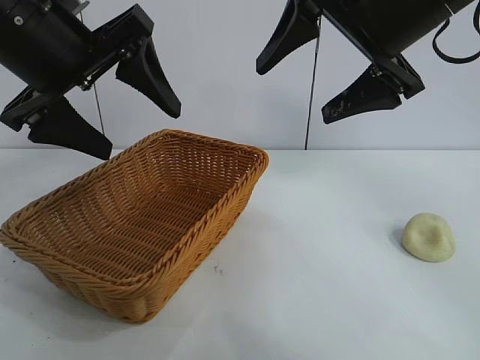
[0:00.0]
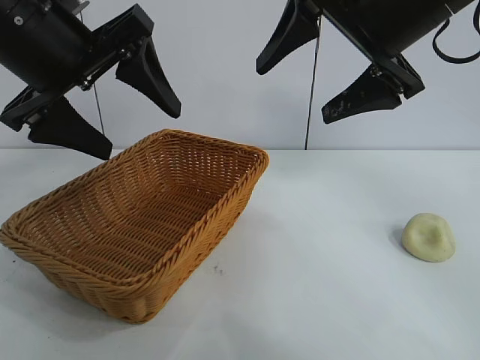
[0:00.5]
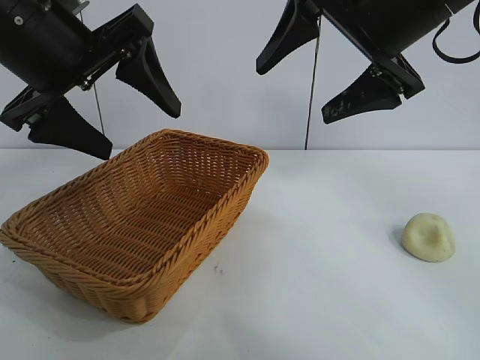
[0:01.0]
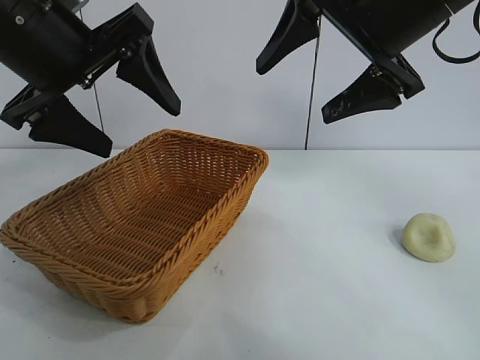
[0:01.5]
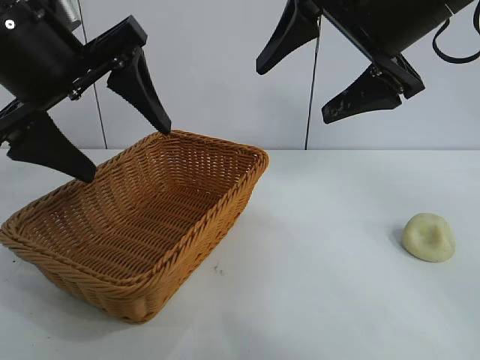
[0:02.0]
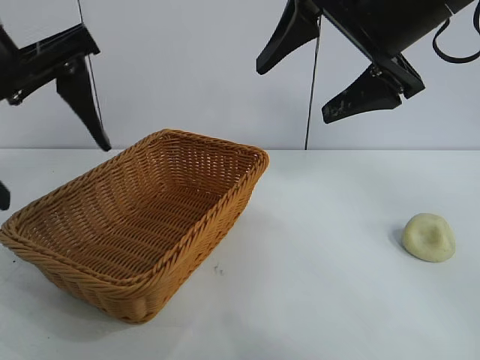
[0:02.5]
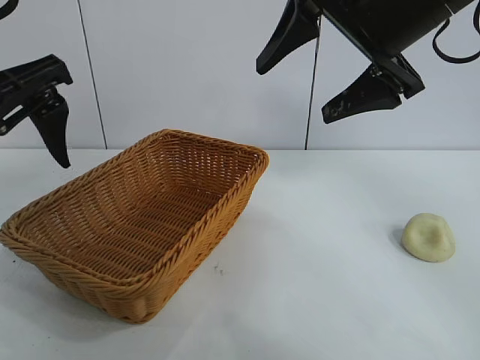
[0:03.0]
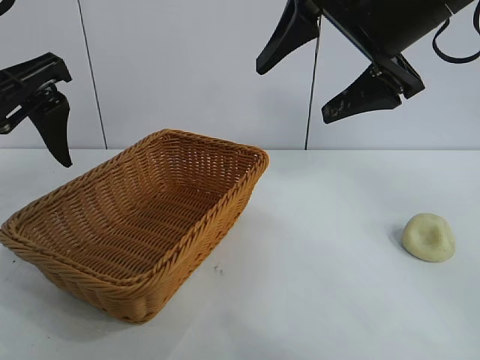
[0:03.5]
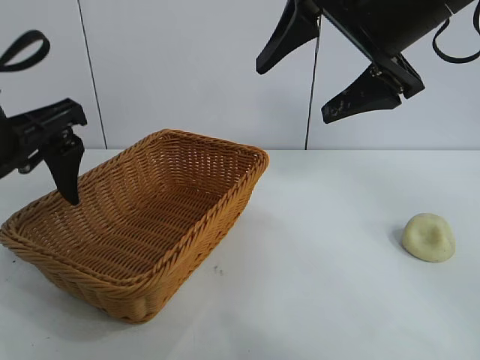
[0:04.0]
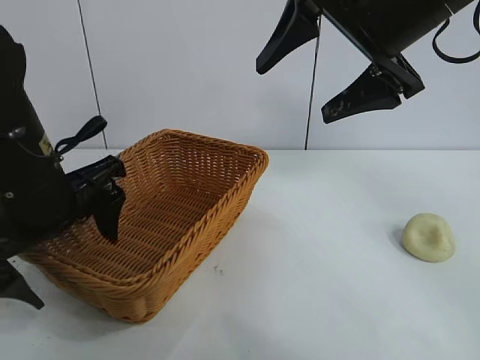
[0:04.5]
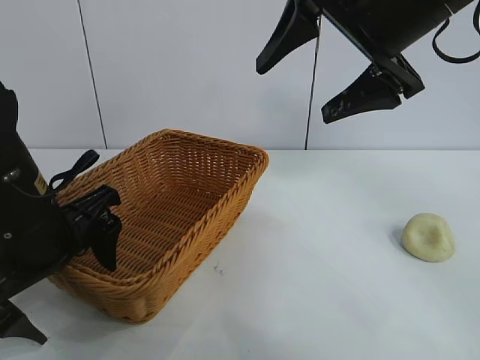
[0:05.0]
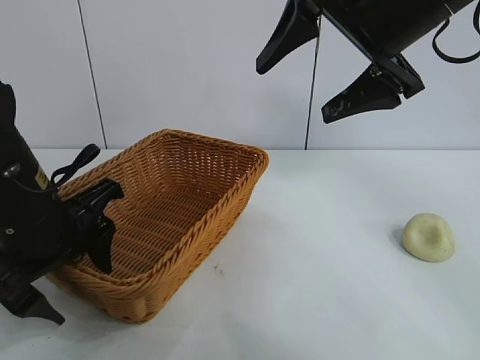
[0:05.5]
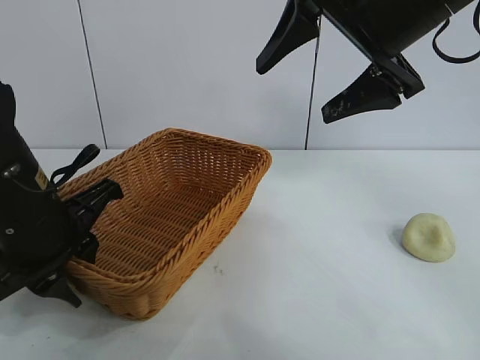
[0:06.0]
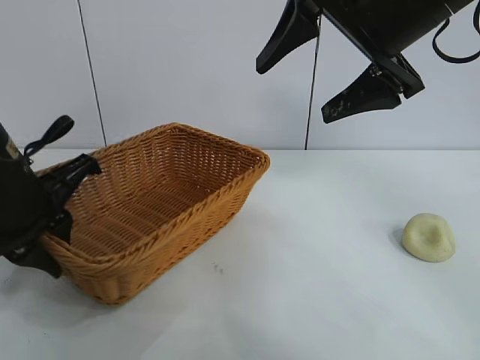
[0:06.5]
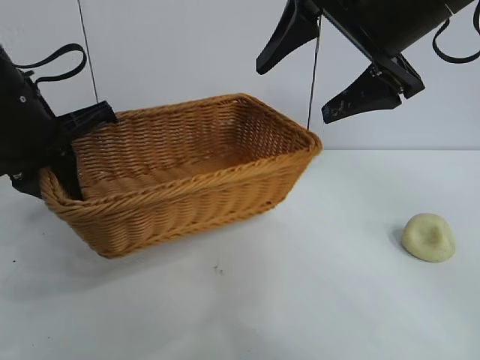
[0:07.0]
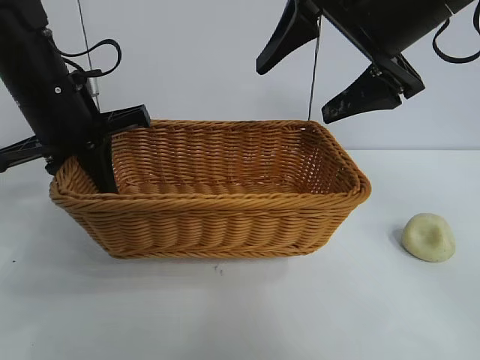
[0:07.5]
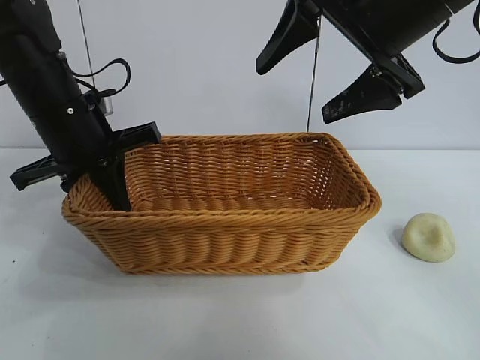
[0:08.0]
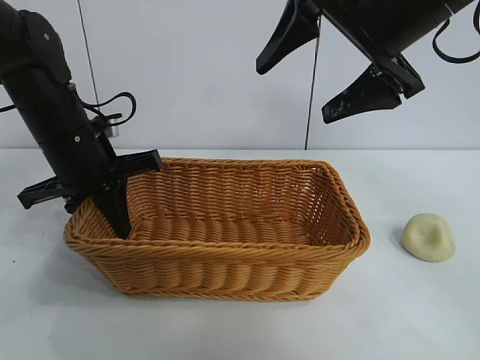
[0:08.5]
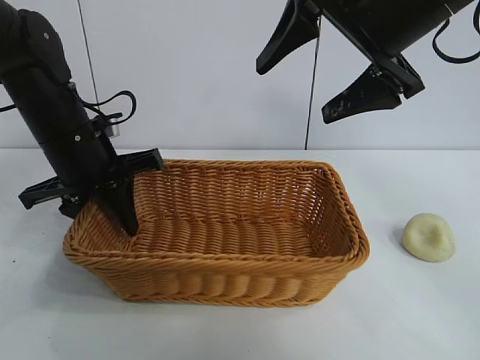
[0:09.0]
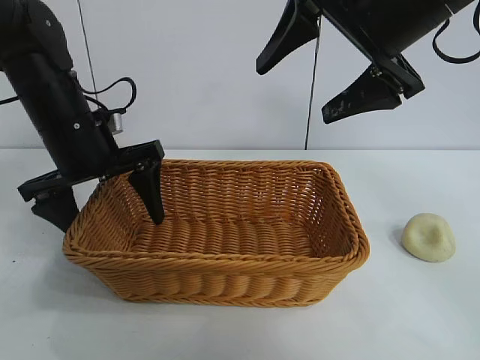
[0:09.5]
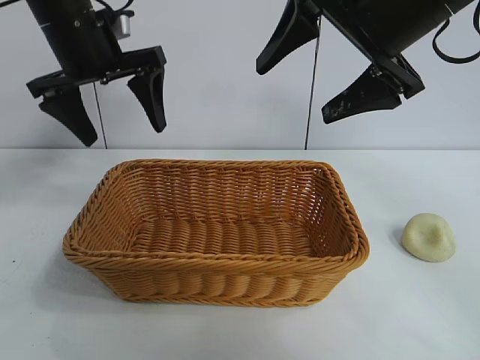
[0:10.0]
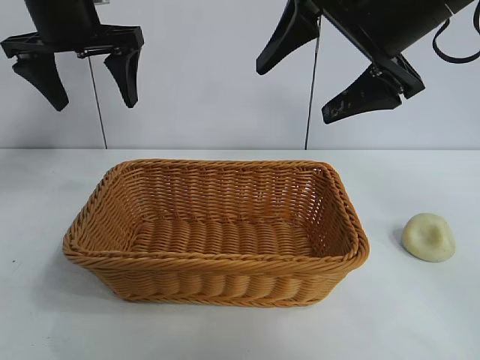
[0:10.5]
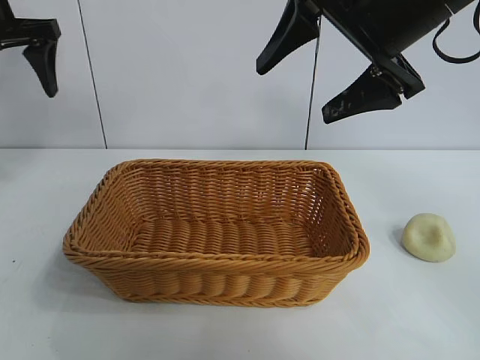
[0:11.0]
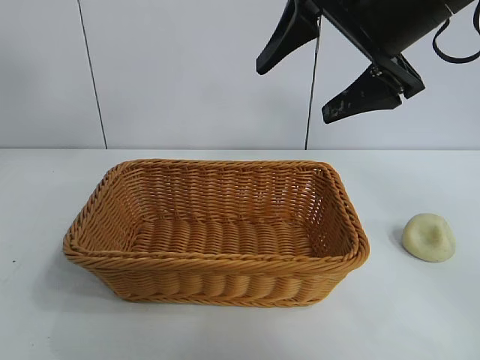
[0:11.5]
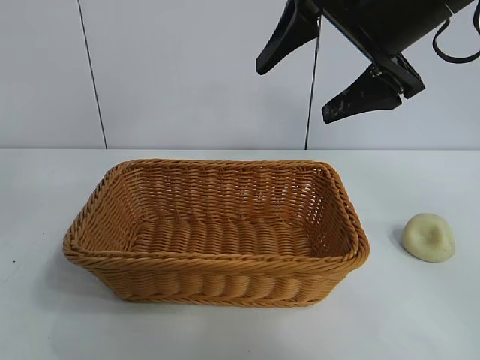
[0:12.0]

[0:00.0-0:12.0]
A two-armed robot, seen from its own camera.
Task of the whole recording: pick up the egg yolk pastry and put it into the basket.
Step, 0:01.5 to 0:06.0: Grasp the basket with left gripper.
Step, 0:06.5 to 0:09.5: Place the basket in the center of view with left gripper.

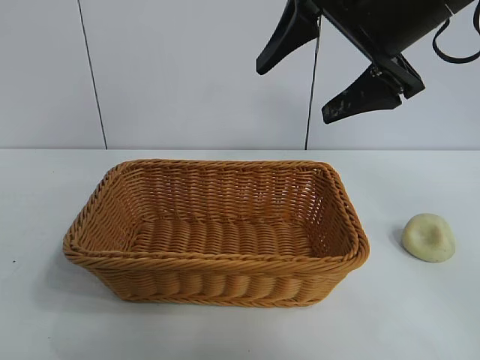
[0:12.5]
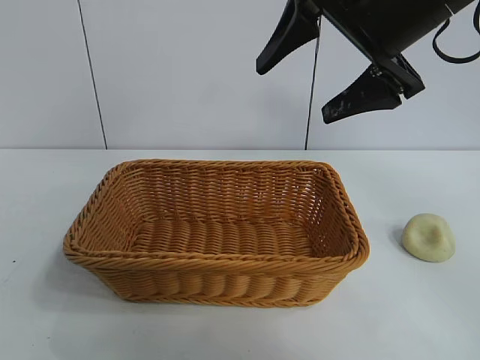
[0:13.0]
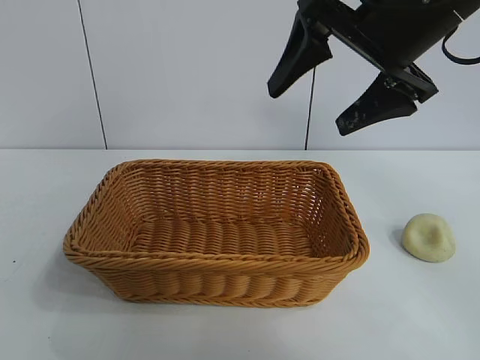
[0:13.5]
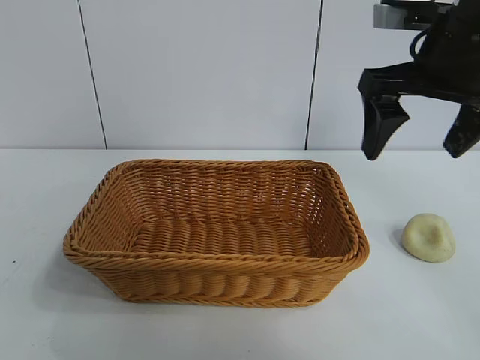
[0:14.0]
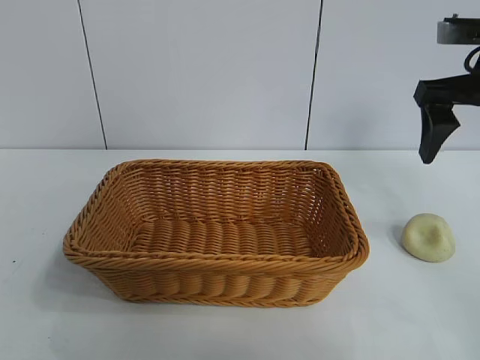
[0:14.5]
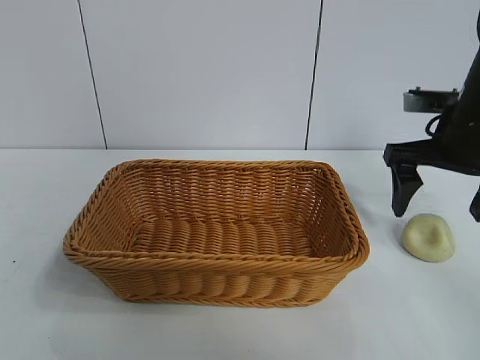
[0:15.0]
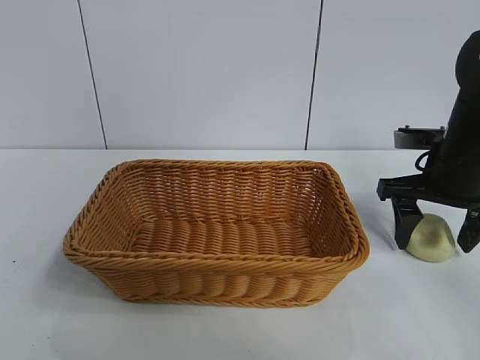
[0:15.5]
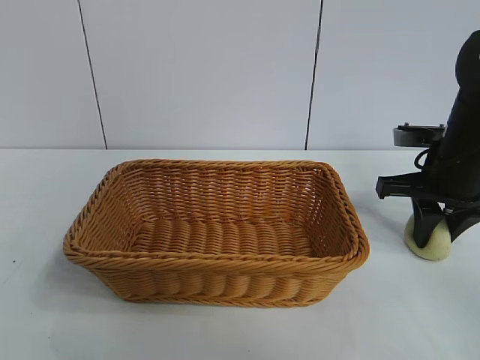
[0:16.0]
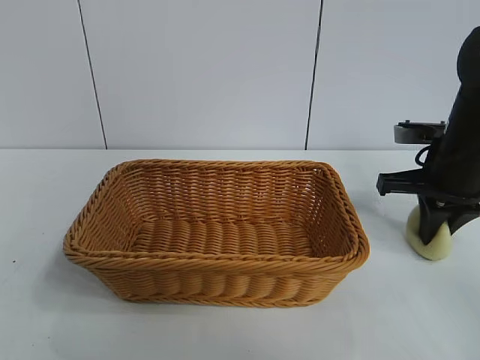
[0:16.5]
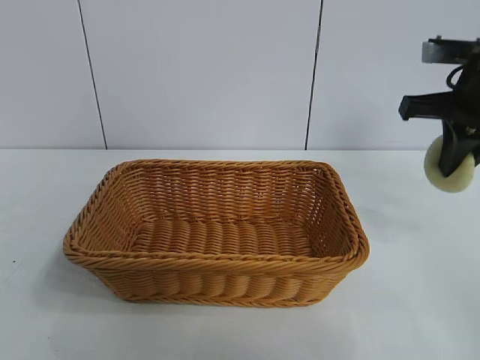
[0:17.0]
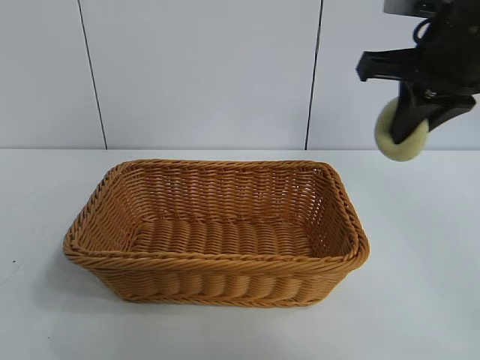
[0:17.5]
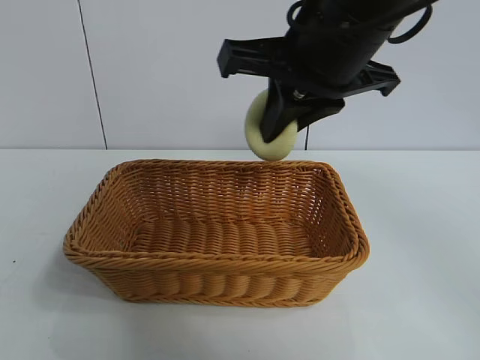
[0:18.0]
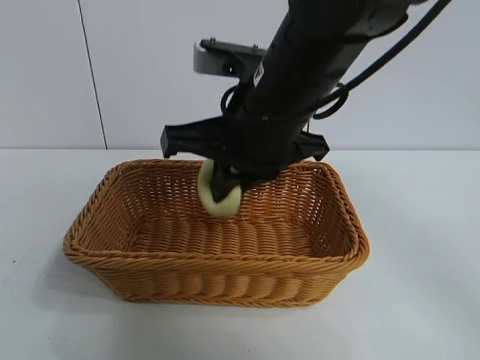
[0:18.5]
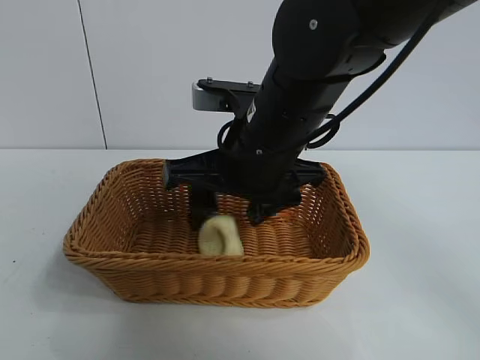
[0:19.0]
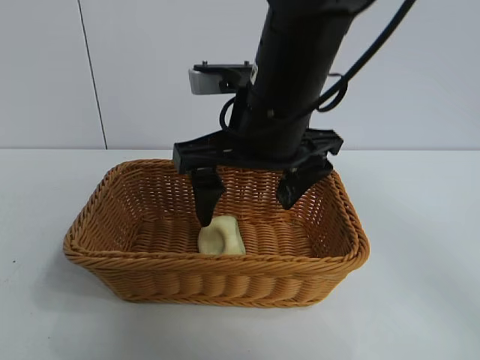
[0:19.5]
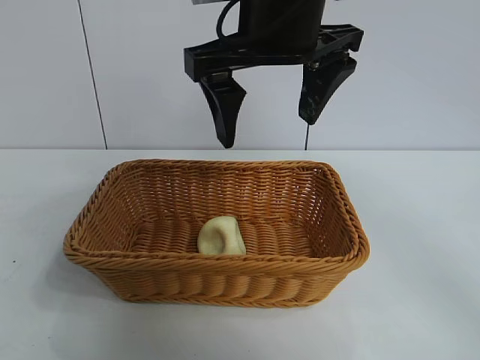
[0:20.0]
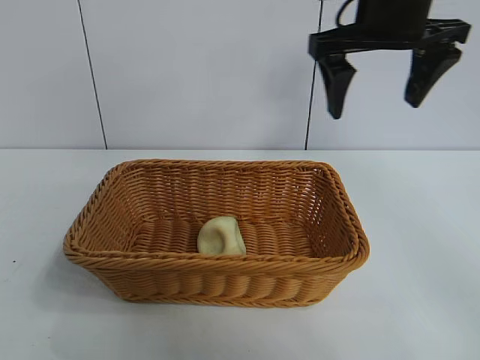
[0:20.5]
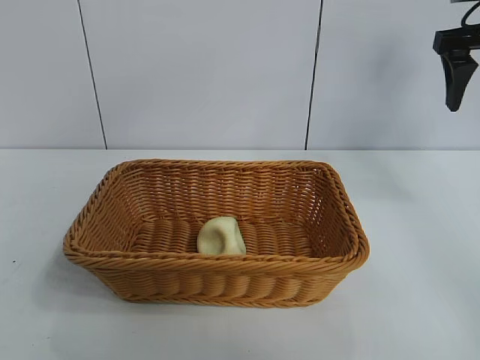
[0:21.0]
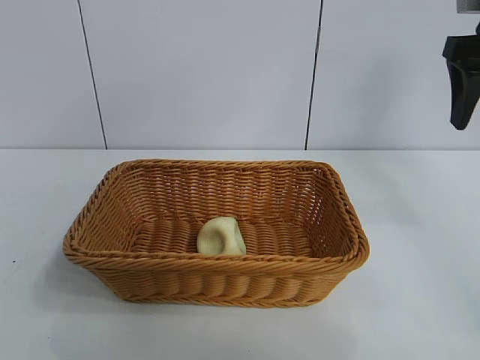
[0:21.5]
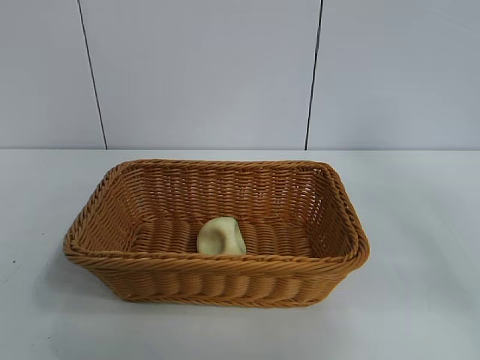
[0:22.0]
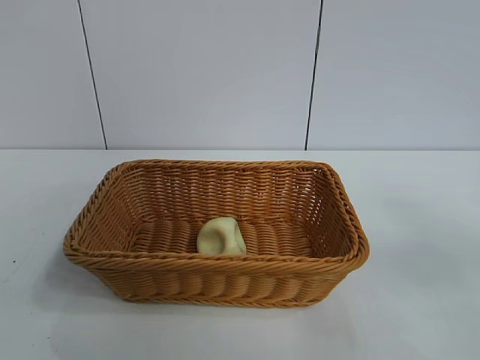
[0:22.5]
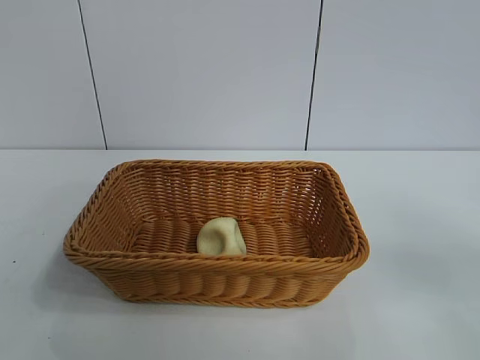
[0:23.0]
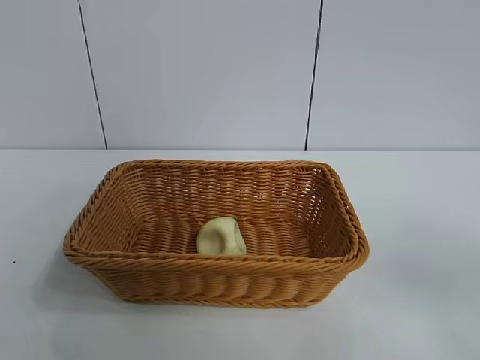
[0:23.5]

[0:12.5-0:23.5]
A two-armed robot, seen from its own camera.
Task of the whole recording: pick up the egg yolk pastry and put it into the basket.
Step, 0:12.5 to 0:16.5: Grasp egg yolk pastry with right gripper.
Step, 0:17.0 to 0:19.5: Place the egg yolk pastry in the basket with right gripper.

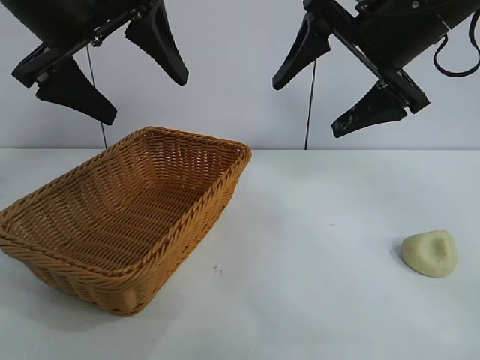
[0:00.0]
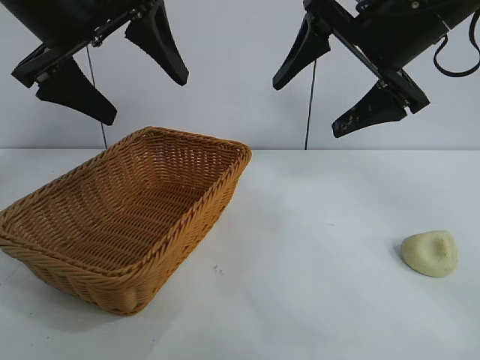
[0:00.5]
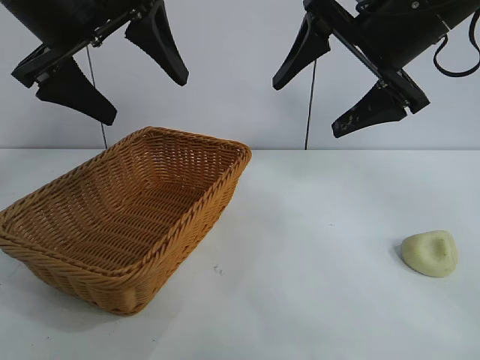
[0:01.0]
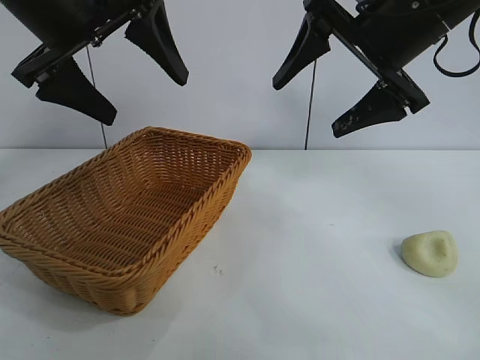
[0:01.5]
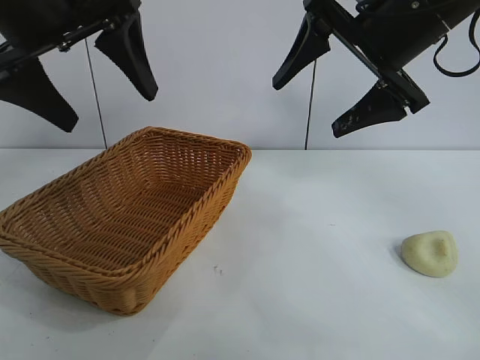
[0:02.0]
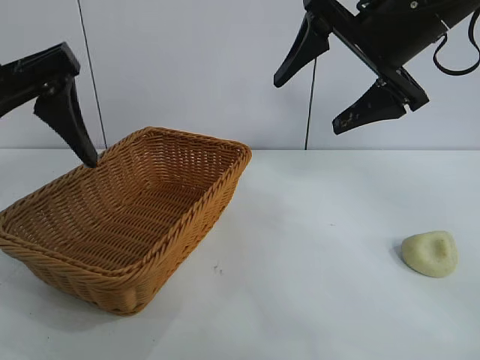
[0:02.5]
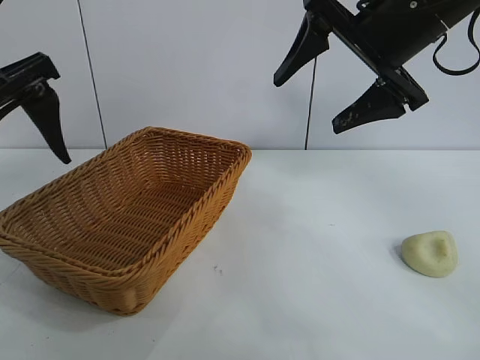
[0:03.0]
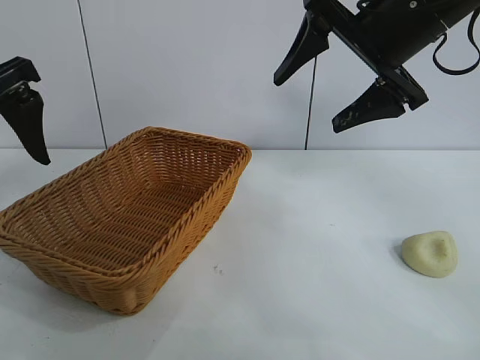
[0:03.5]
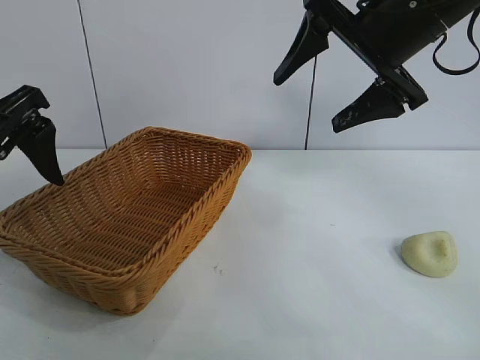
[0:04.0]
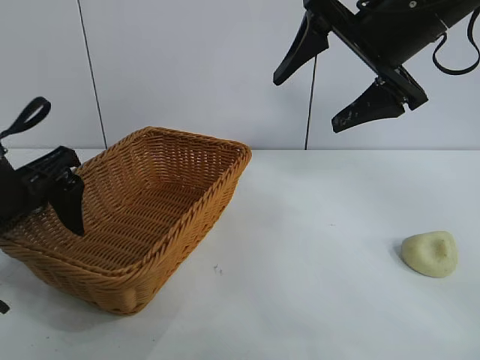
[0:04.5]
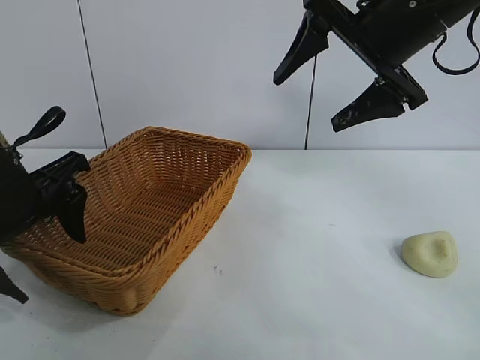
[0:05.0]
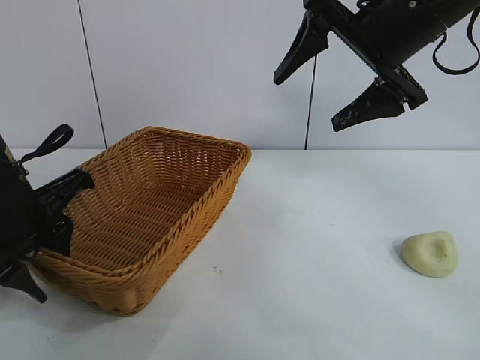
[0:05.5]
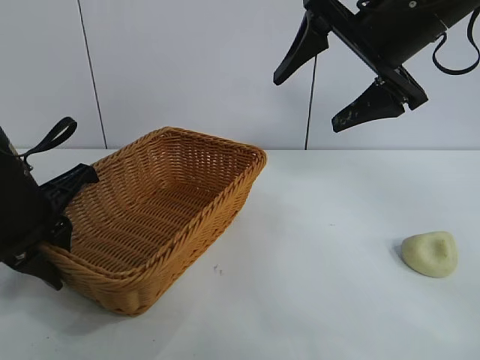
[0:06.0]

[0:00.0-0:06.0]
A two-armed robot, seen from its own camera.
Task of the whole recording: pick up the egg yolk pastry and put it into the basket.
Step, 0:02.0 to 0:05.5: Grasp the basket with left gripper.
